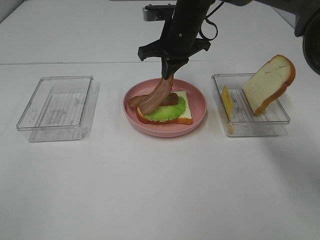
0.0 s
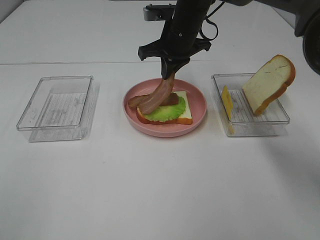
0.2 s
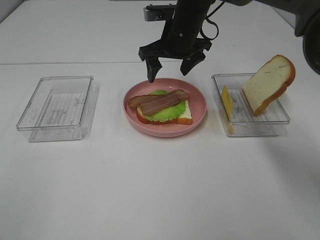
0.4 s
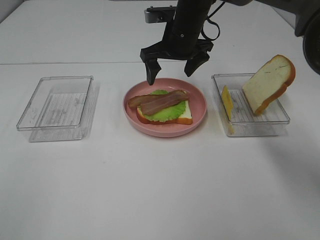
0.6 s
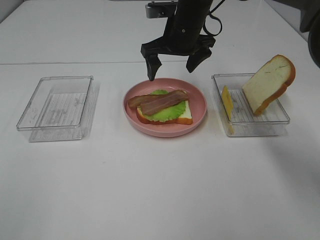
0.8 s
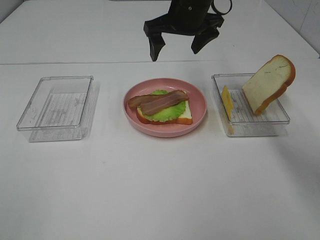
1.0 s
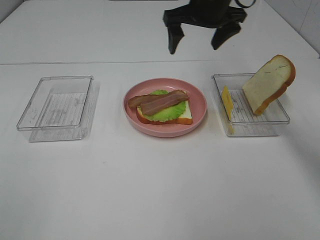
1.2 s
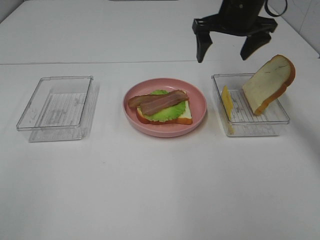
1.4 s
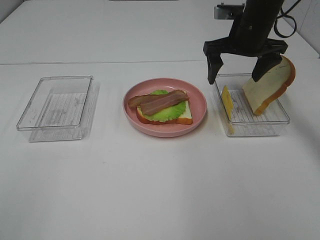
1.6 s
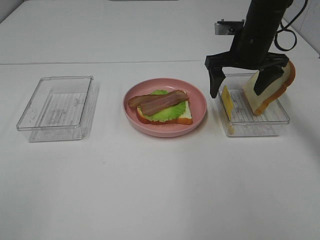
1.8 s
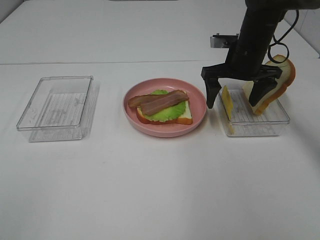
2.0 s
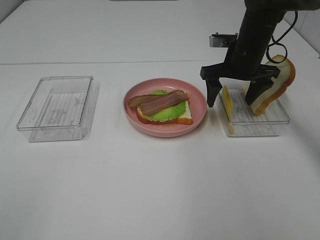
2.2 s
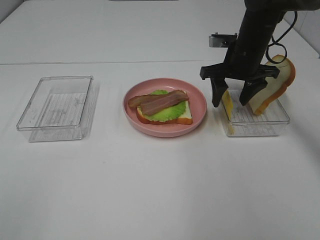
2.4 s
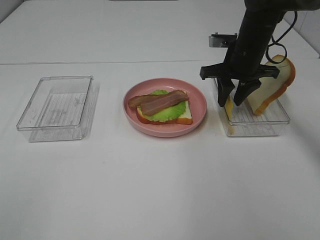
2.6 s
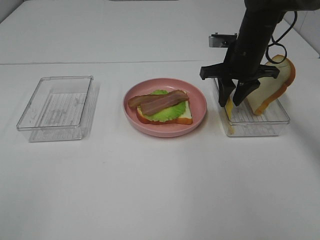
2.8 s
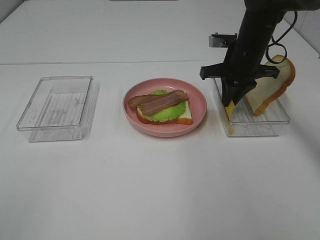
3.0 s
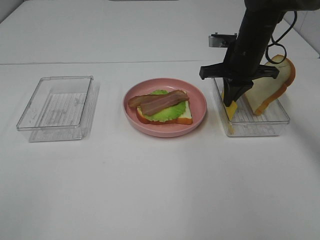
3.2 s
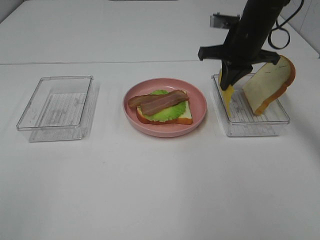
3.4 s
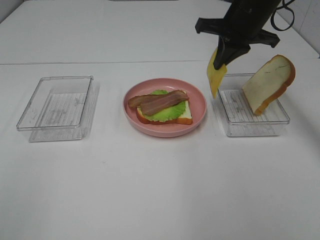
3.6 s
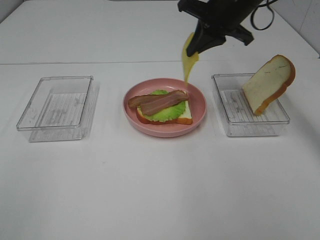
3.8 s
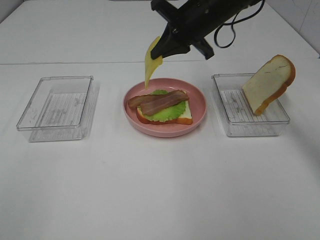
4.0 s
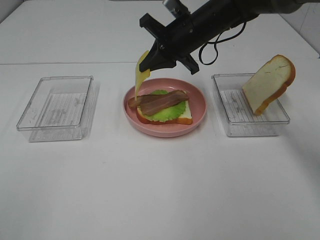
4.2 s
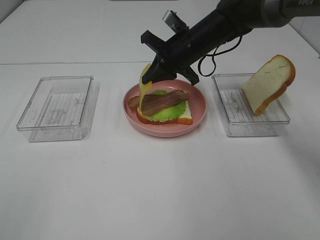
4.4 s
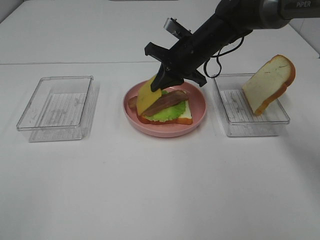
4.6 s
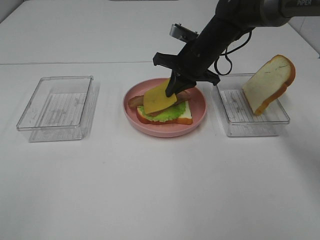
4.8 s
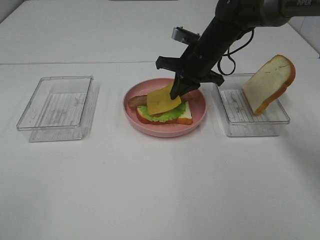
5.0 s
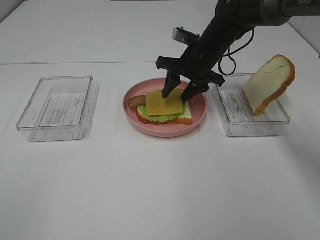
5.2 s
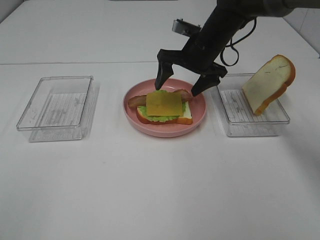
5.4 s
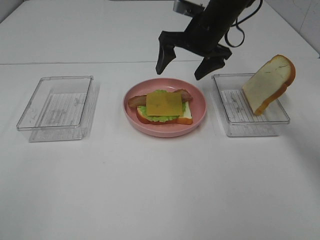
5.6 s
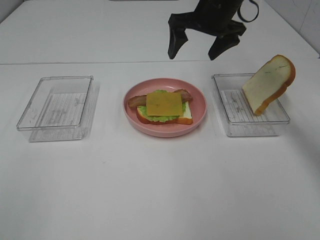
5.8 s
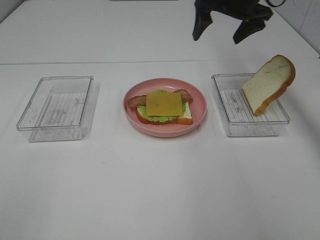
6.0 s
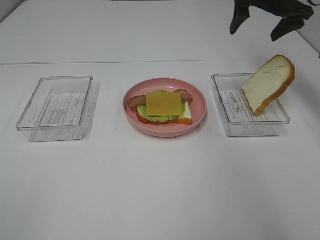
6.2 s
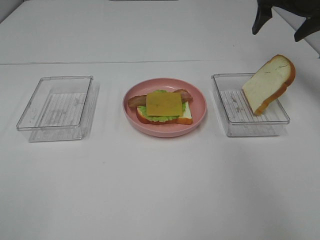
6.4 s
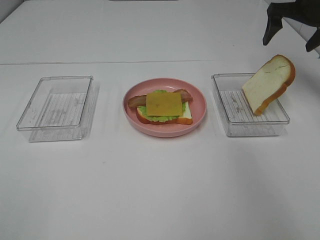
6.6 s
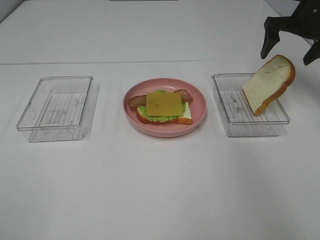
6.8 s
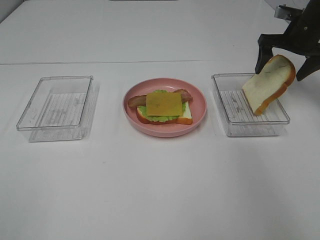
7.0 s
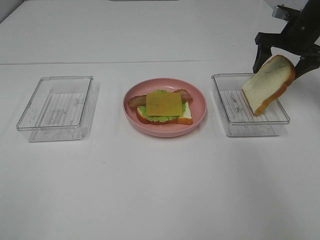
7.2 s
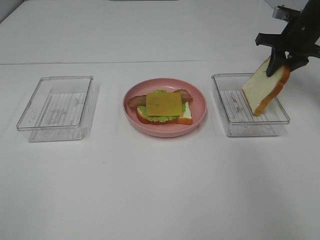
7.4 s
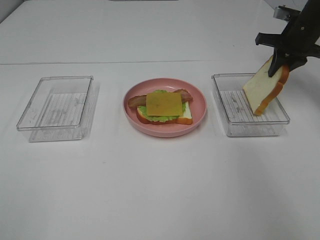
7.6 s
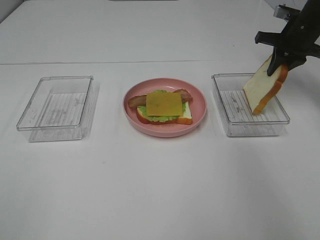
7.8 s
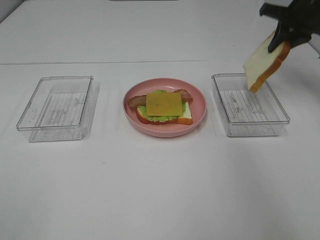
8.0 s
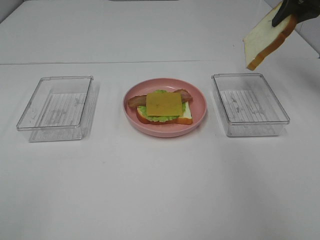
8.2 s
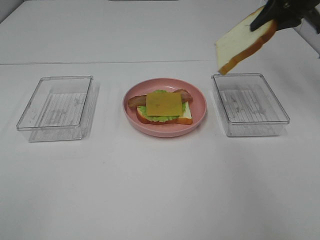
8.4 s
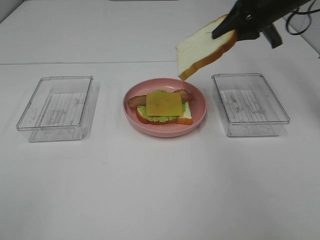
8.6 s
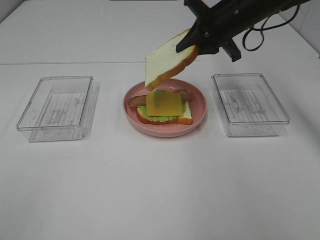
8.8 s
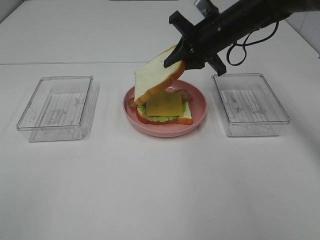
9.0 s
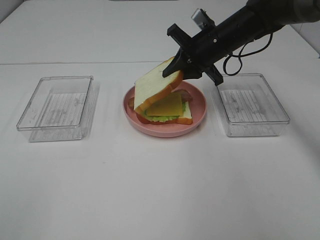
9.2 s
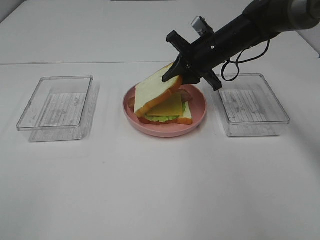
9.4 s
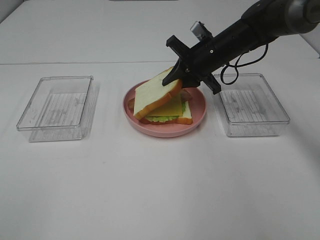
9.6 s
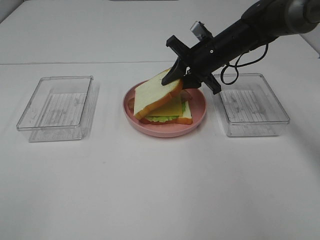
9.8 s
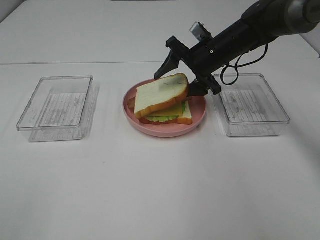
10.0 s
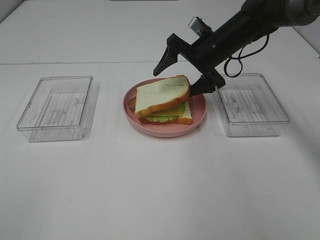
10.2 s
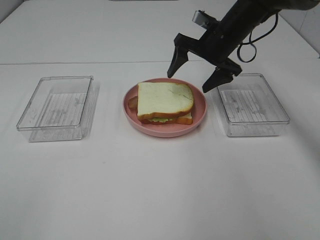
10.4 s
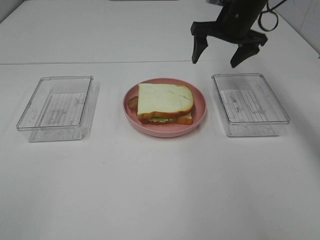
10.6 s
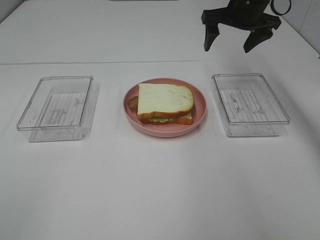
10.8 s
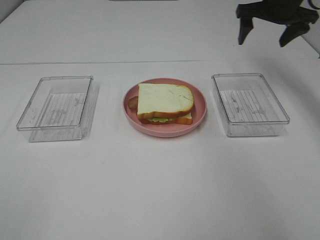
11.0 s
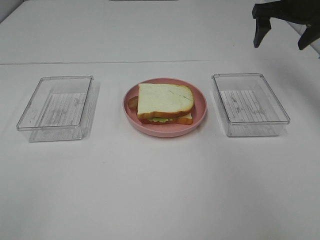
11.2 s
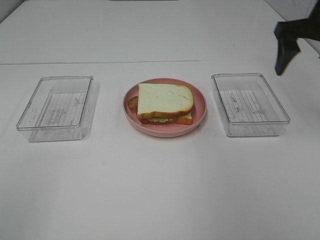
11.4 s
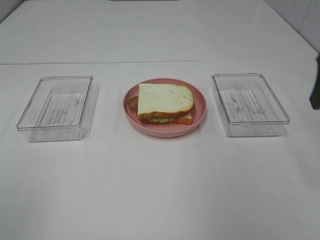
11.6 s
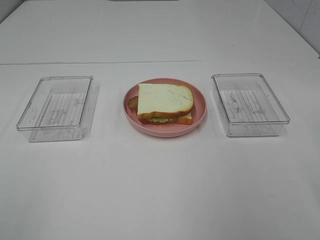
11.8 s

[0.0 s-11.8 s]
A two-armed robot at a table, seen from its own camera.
Task of the whole recording: Make sandwiches.
Step, 0.4 to 3.2 s: Right hand:grab the cheese slice.
Step, 3.4 to 5.2 s: Right hand:place the cheese slice on top of the bacon.
Step, 5.4 to 7.6 s: Right hand:grab the bread slice.
Step, 7.8 to 10.4 s: Right hand:place the bread slice on the cheese slice.
0.0 to 1.4 s: The right gripper moves to the right and upward, about 10 cm, and opens up.
1.4 to 3.0 s: The right gripper is displaced downward by about 10 cm, and closes its fingers.
3.0 to 4.4 s: The right gripper goes about 10 cm to the left.
4.4 to 6.0 s: The right gripper shifts some 15 cm to the right and upward, and opens.
6.0 to 7.4 s: The right gripper travels to the right and downward by roughly 15 cm, and closes its fingers.
7.4 to 8.8 s: The right gripper heads to the left, covering roughly 15 cm.
8.8 to 10.4 s: The right gripper opens up.
10.4 to 11.8 s: The right gripper goes about 35 cm backward and to the right.

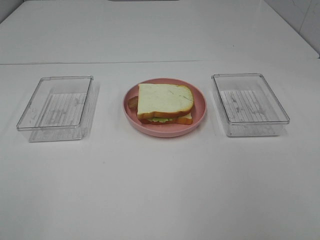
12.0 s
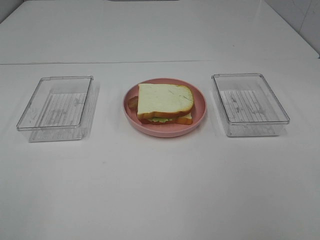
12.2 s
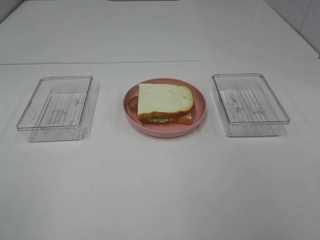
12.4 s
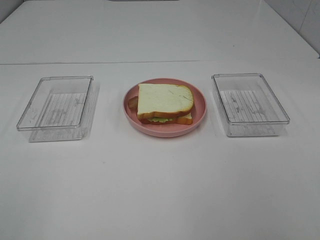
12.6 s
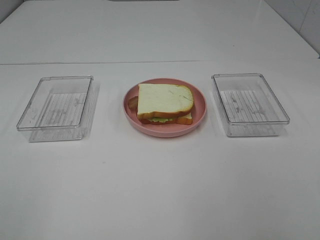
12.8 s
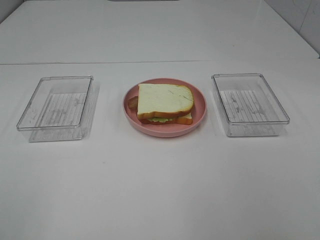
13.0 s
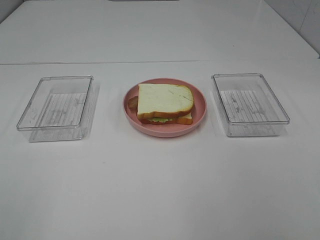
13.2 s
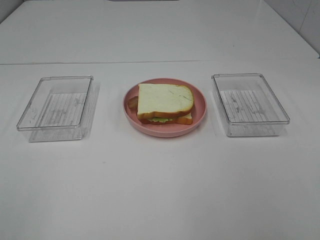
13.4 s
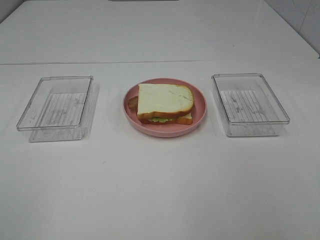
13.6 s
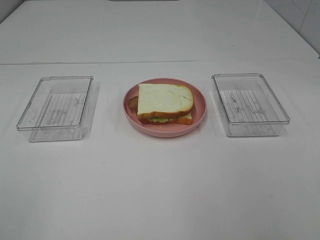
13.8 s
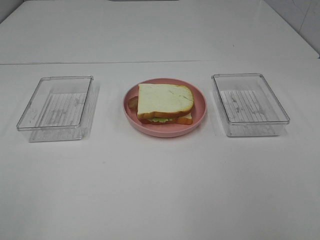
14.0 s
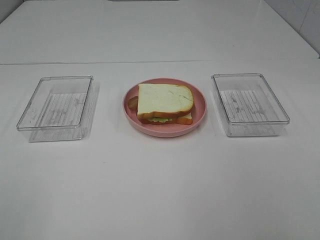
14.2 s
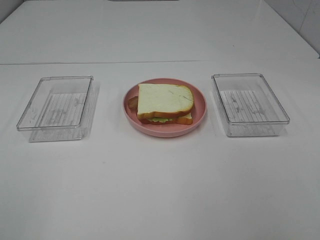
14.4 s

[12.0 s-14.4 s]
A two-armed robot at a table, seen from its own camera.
Task of the whole recording: Make sandwiches.
13.2 to 14.4 s: The two grippers keep their place.

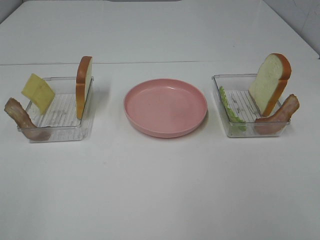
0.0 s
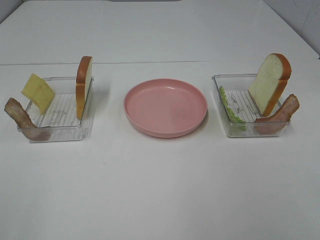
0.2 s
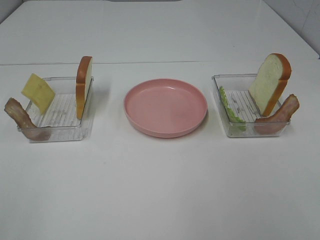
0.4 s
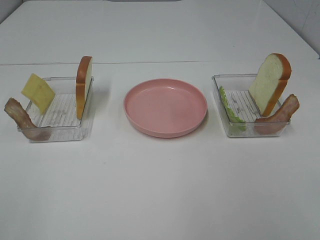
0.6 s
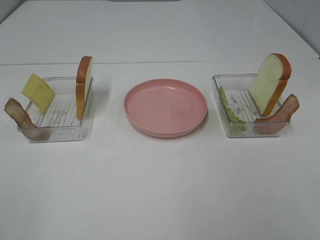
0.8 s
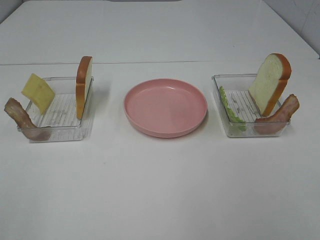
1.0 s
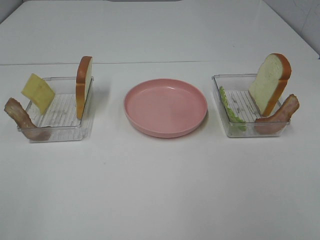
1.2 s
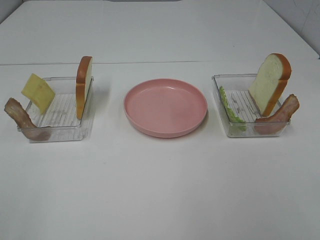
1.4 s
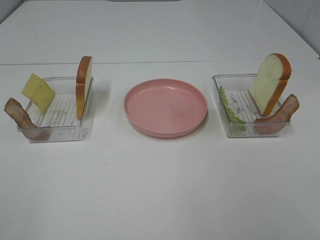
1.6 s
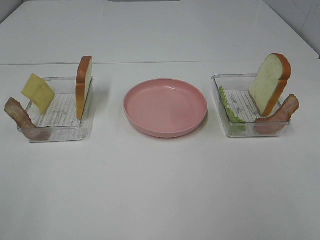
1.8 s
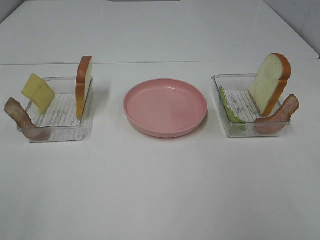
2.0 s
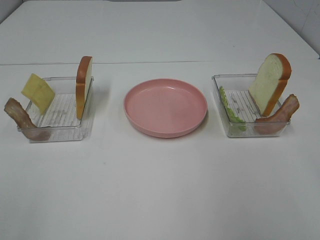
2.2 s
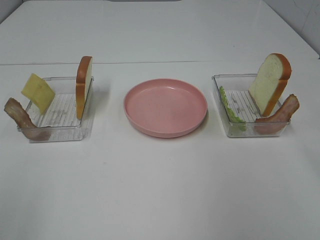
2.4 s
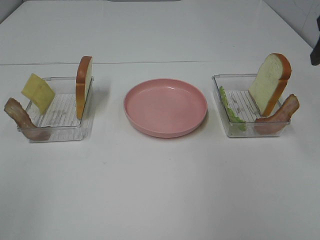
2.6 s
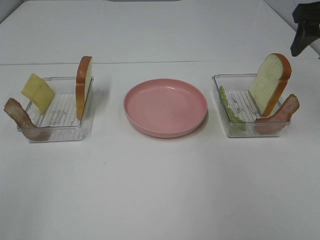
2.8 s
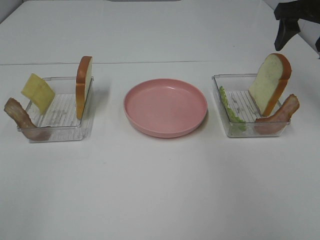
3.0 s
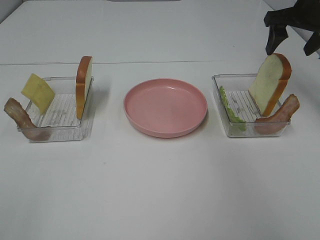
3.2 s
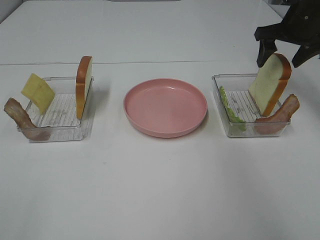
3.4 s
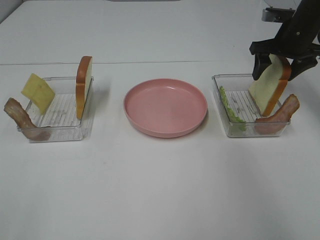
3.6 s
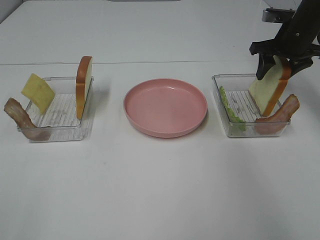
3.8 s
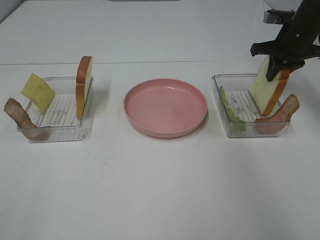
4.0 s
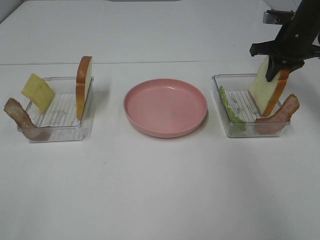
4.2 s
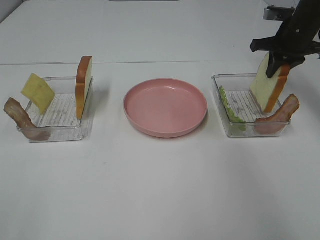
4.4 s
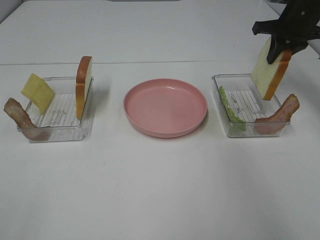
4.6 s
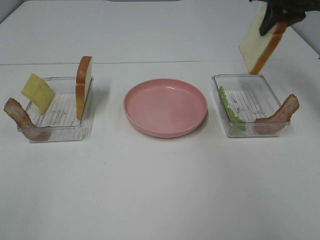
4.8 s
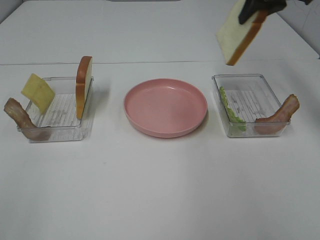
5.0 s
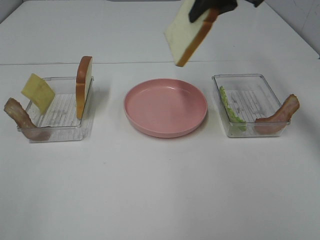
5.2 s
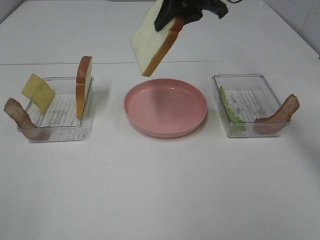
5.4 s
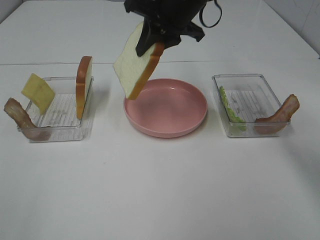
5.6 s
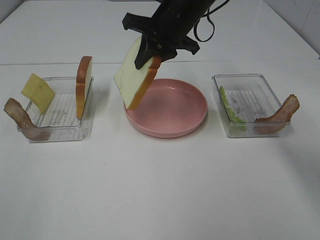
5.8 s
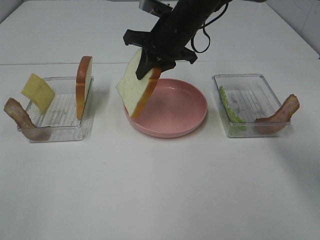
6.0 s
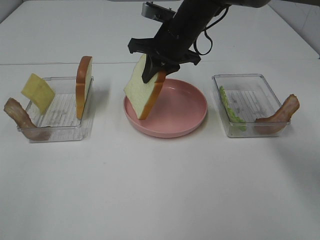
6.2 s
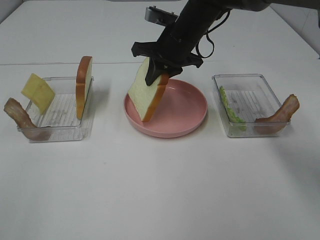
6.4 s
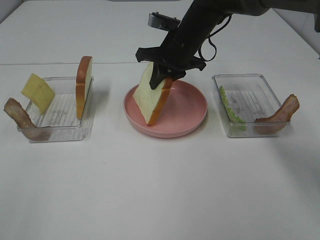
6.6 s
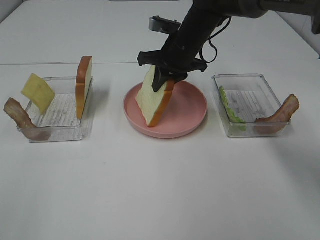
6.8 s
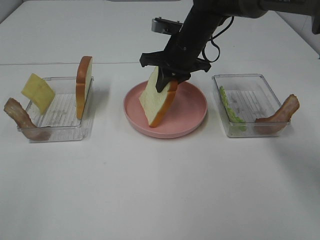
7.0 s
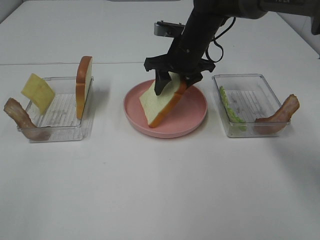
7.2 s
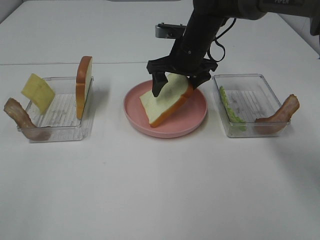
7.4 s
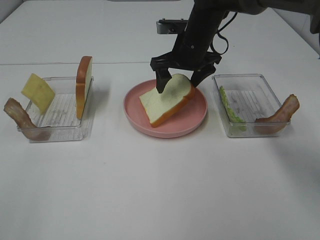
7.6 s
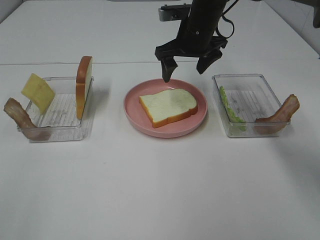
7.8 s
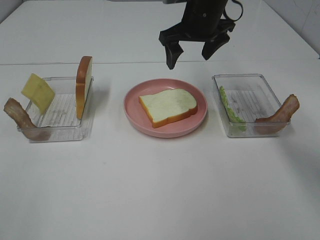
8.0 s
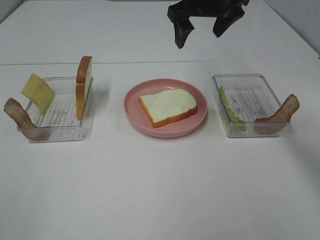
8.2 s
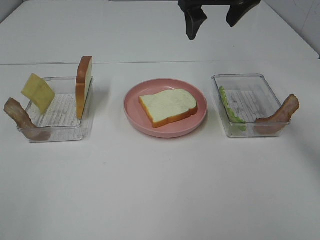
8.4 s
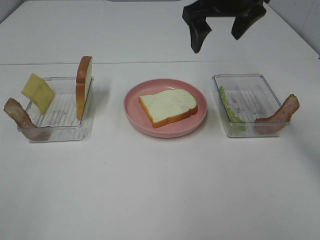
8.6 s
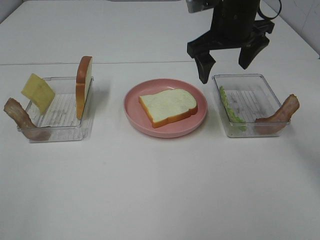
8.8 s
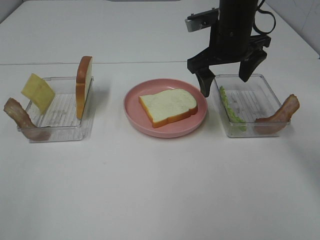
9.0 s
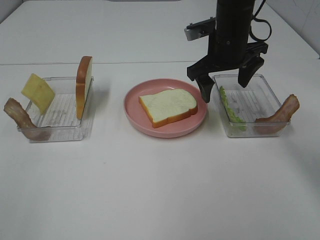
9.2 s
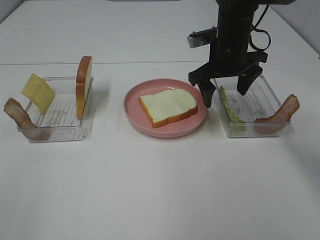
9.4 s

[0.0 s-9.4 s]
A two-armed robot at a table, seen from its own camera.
Task of the whole recording: Make sandwiches.
Step, 0.0 to 4.0 s: Right hand:grab the bread slice.
Step, 4.2 to 7.6 s: Right hand:place the bread slice on the plate.
0.0 to 1.6 s: Both grippers stay put.
1.6 to 3.2 s: The right gripper moves forward, approximately 40 cm.
3.2 to 4.8 s: The right gripper travels downward and back again, roughly 10 cm each way, and closes up.
4.8 to 6.2 s: The right gripper travels to the left and downward by roughly 25 cm.
6.2 to 7.8 s: The right gripper opens its fingers.
7.8 to 9.4 s: The right gripper goes some 5 cm to the right, and moves roughly 10 cm upward and comes back.
